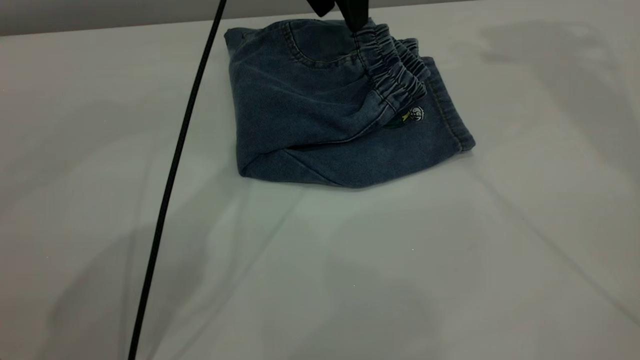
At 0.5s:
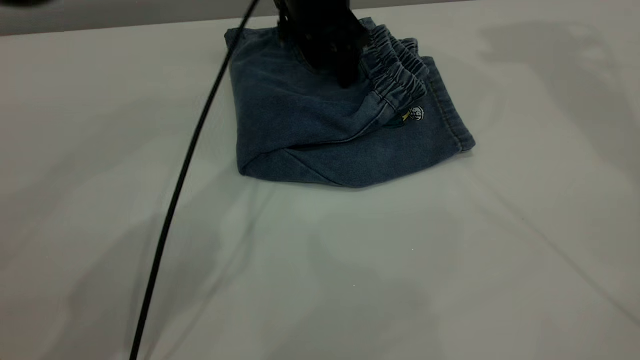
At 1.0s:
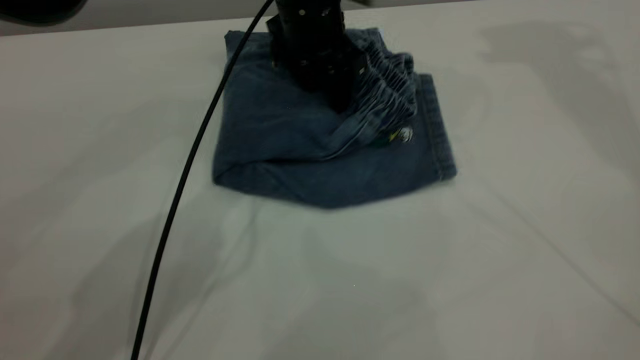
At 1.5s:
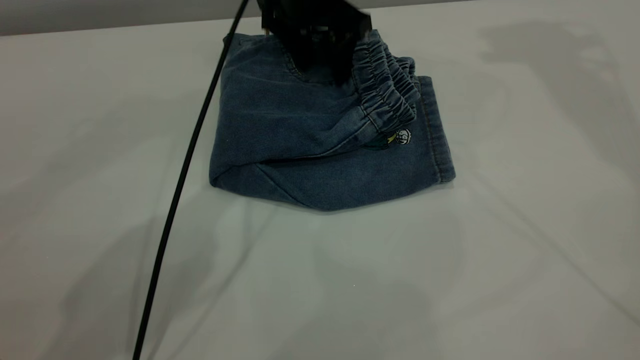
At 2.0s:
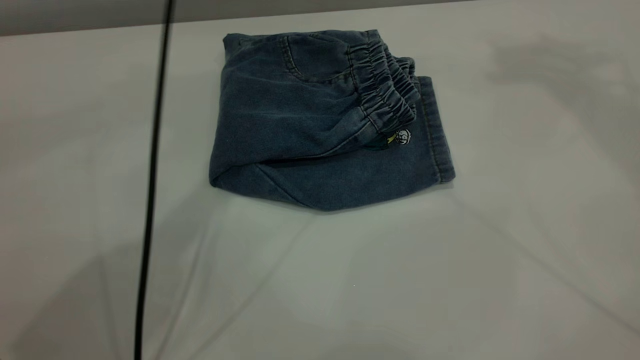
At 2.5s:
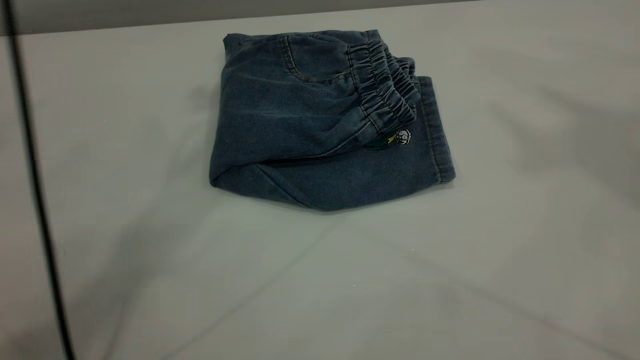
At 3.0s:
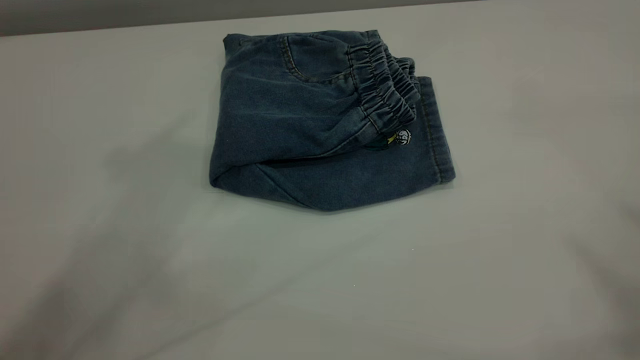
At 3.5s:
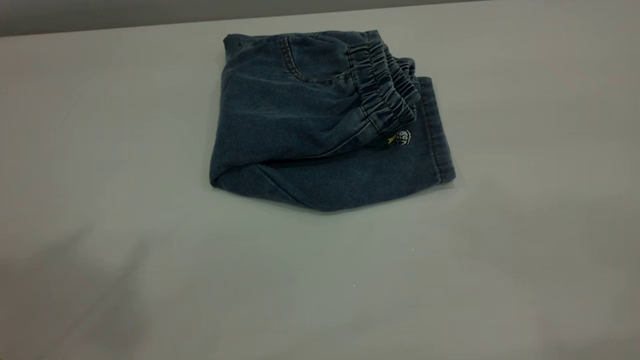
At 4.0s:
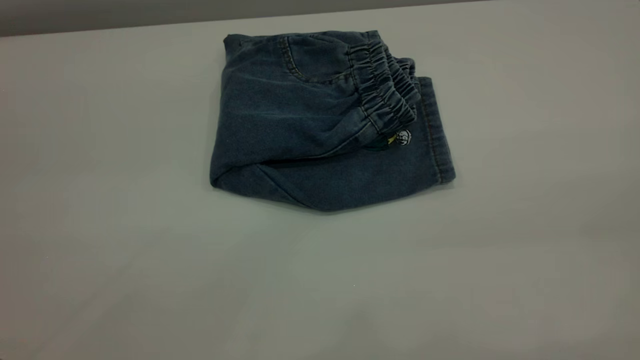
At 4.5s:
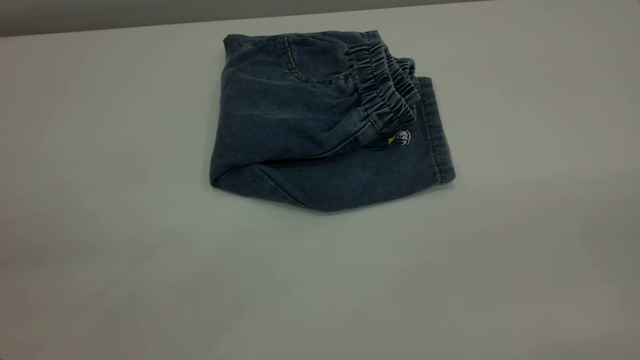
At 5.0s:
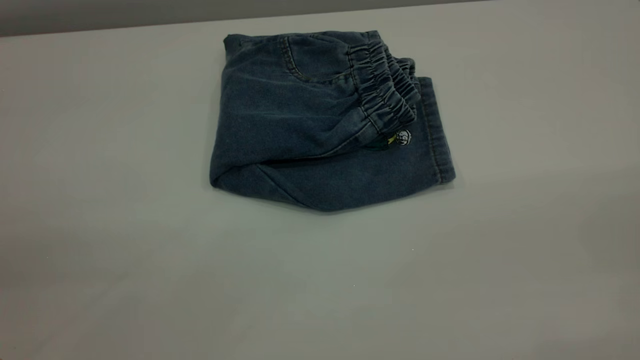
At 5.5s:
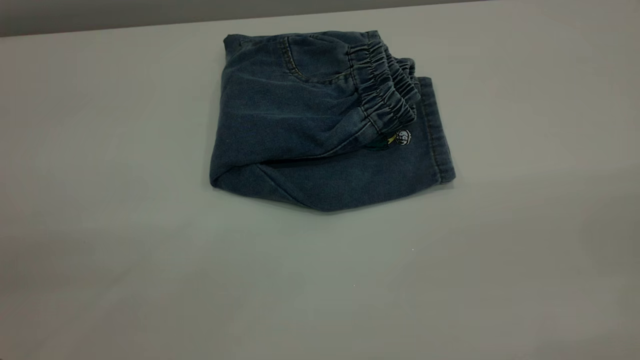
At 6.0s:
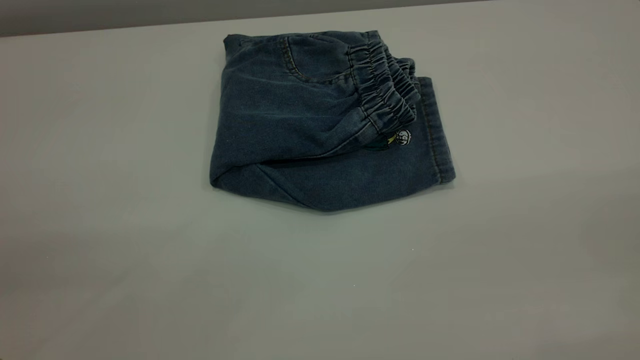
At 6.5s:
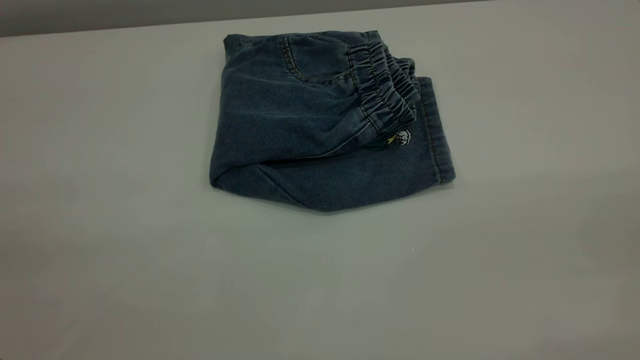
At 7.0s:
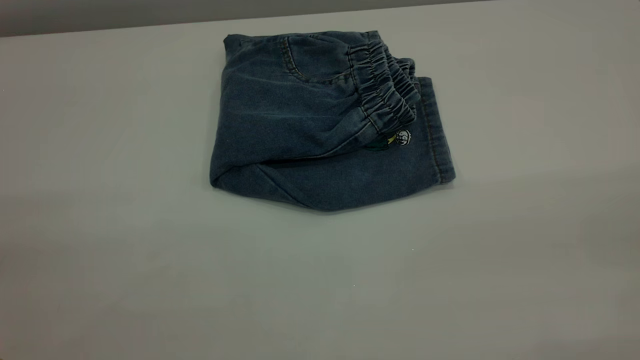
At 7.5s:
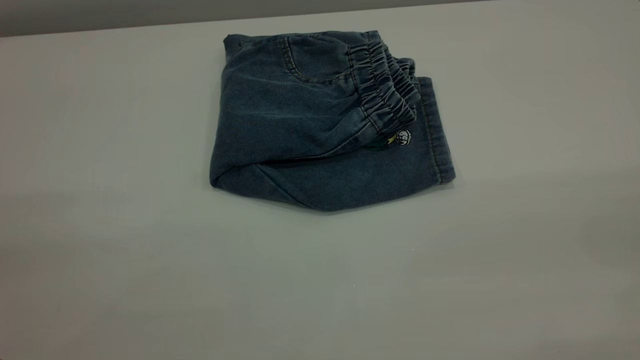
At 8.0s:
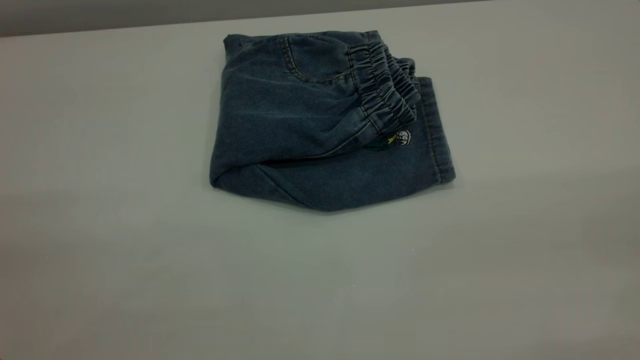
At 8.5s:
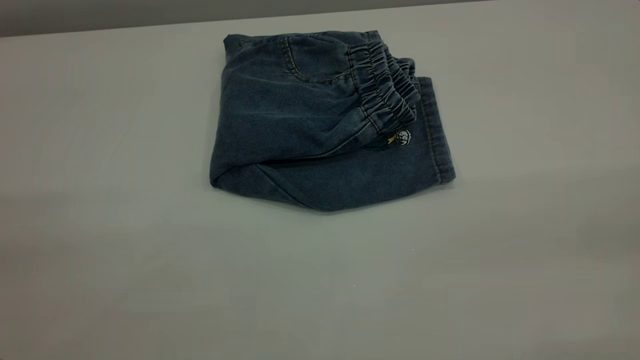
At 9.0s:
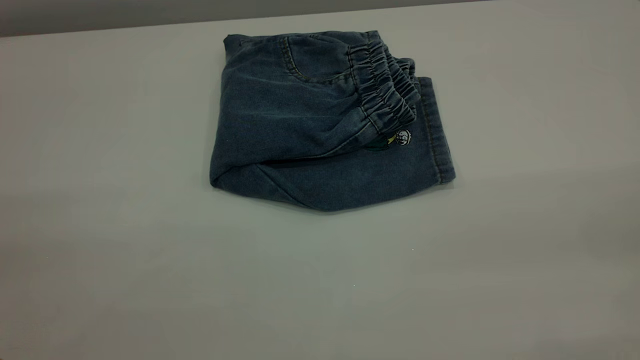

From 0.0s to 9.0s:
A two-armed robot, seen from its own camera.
From 0.0s to 2.0s: The left gripper goes about 10 cm upward, while the right gripper is displaced upward and backward by some 10 cm.
From 2.0s to 4.5s: The left gripper goes approximately 50 cm backward and to the left.
